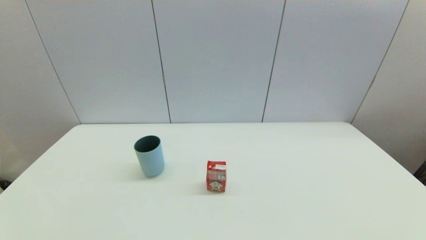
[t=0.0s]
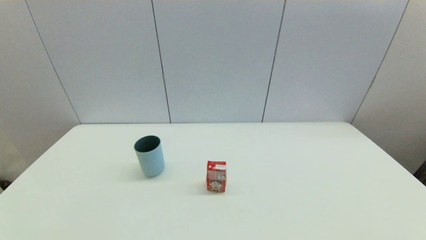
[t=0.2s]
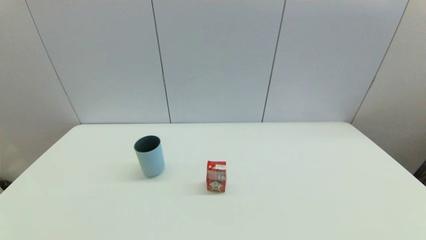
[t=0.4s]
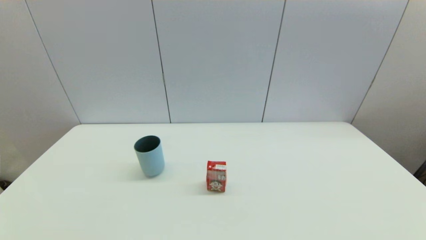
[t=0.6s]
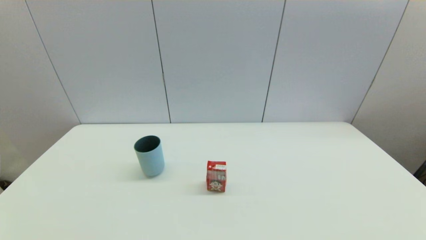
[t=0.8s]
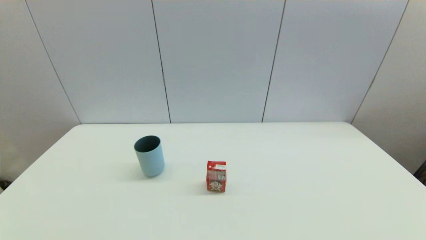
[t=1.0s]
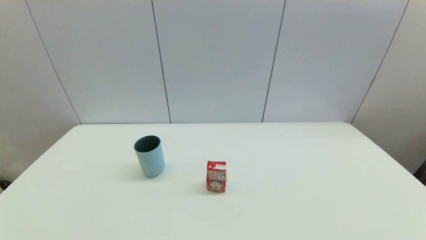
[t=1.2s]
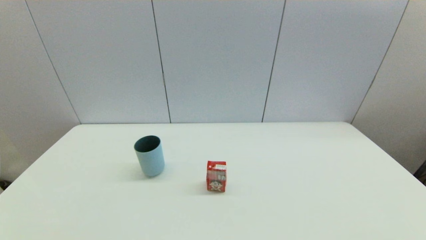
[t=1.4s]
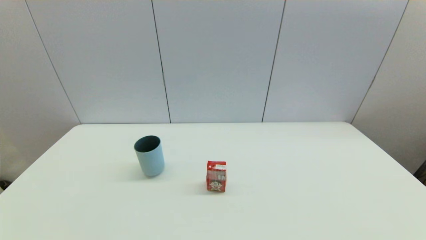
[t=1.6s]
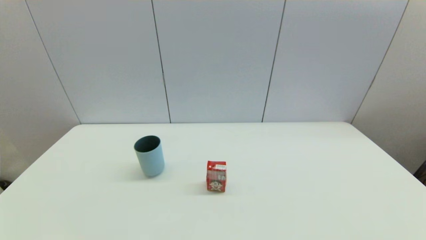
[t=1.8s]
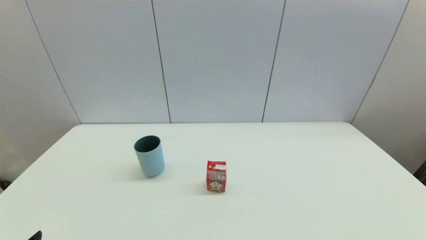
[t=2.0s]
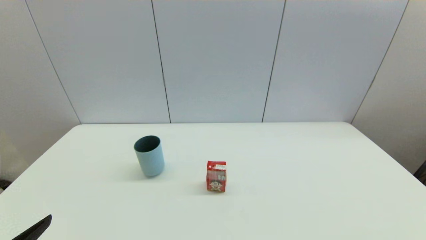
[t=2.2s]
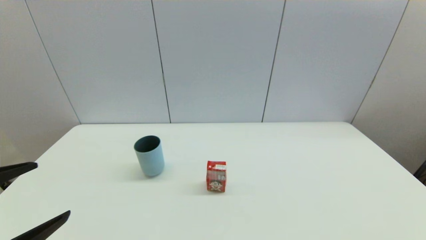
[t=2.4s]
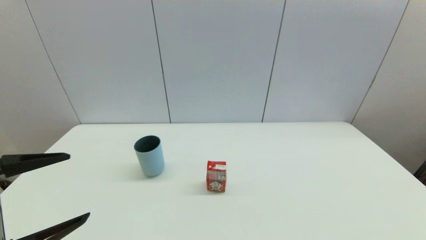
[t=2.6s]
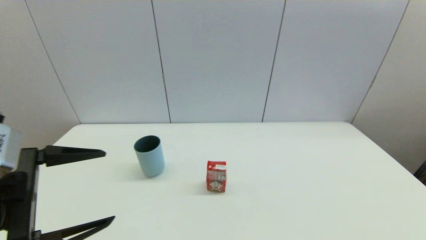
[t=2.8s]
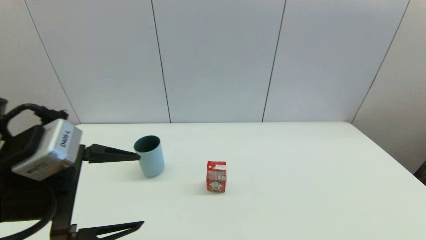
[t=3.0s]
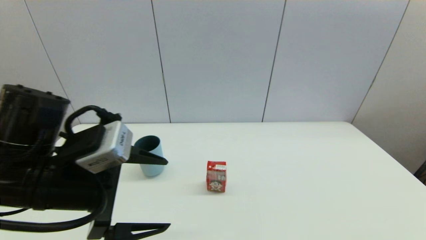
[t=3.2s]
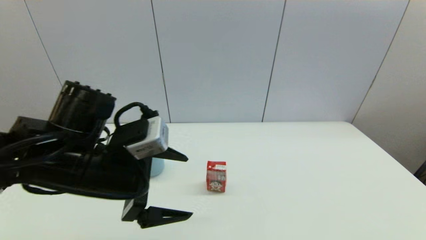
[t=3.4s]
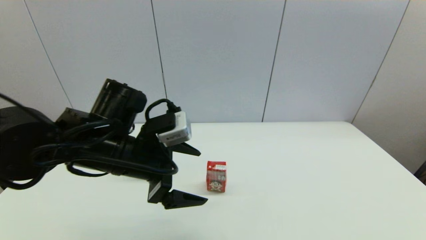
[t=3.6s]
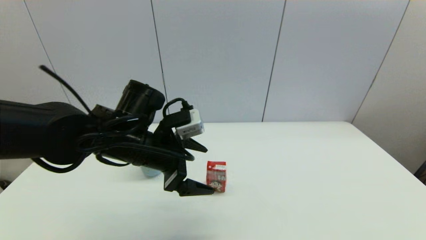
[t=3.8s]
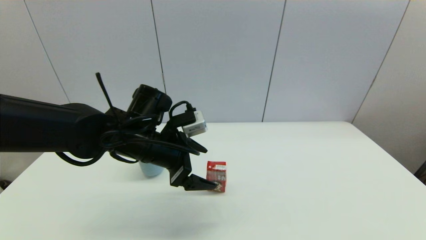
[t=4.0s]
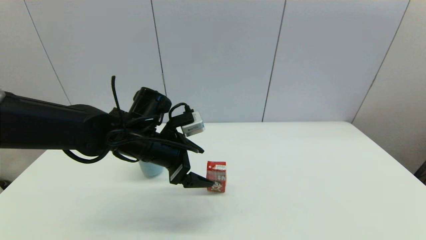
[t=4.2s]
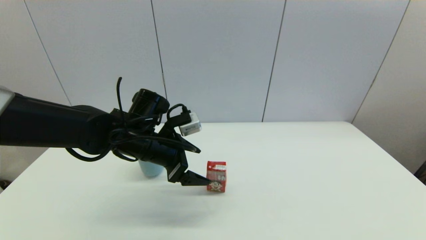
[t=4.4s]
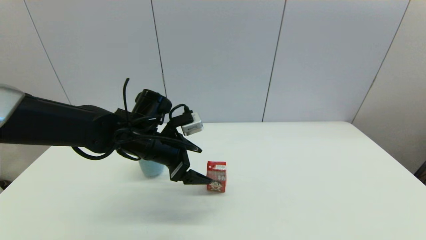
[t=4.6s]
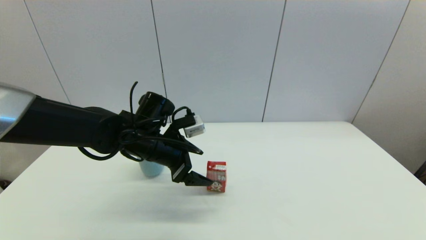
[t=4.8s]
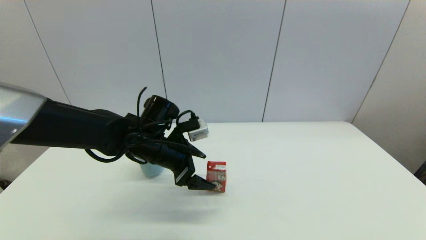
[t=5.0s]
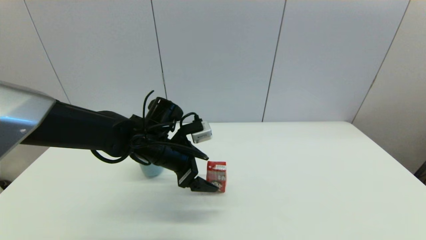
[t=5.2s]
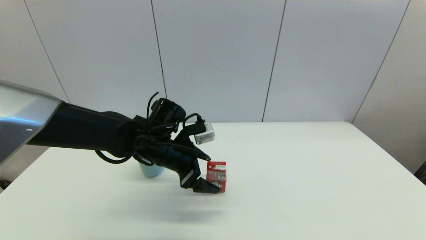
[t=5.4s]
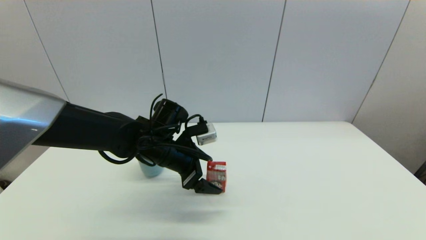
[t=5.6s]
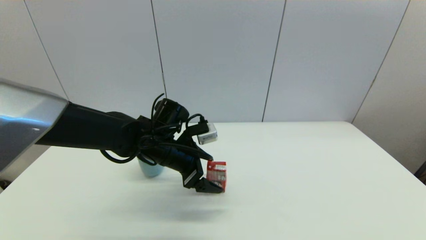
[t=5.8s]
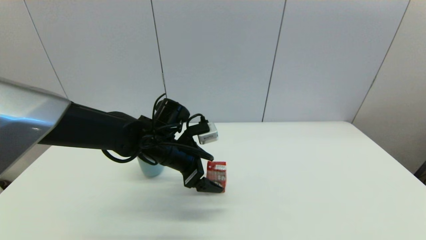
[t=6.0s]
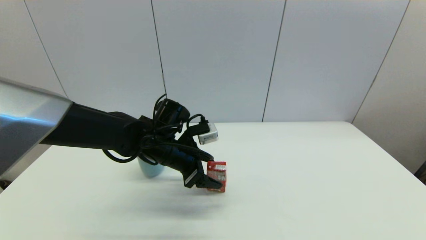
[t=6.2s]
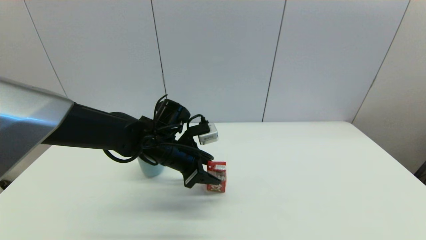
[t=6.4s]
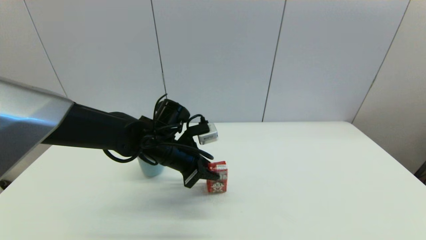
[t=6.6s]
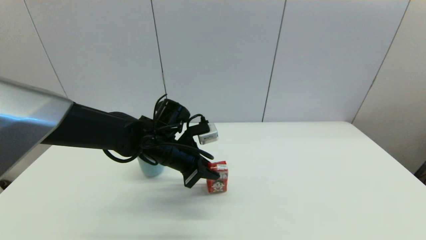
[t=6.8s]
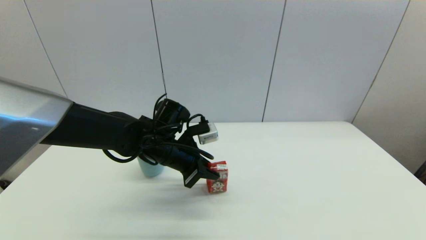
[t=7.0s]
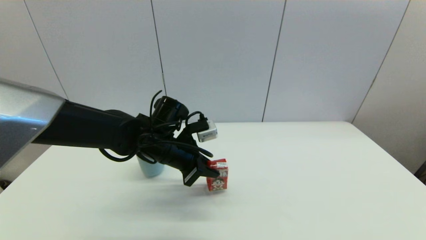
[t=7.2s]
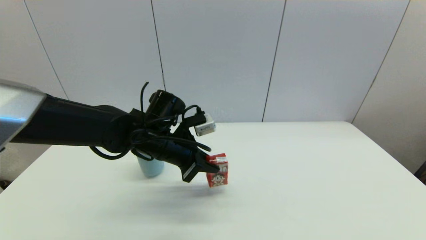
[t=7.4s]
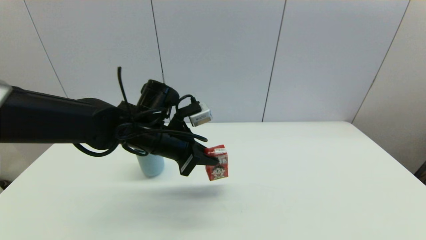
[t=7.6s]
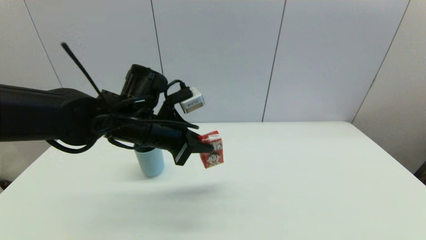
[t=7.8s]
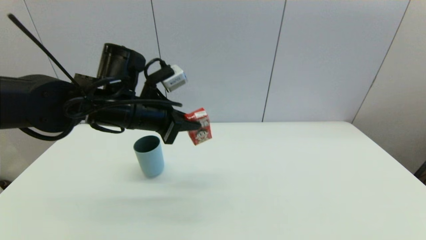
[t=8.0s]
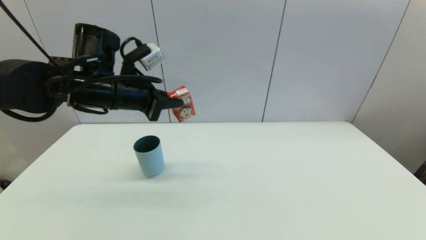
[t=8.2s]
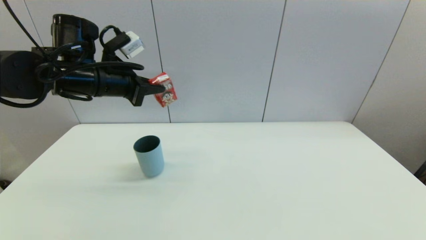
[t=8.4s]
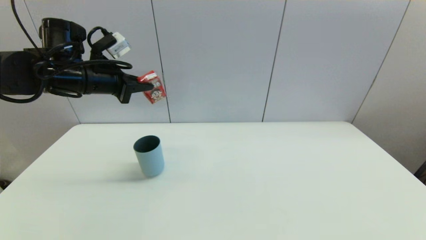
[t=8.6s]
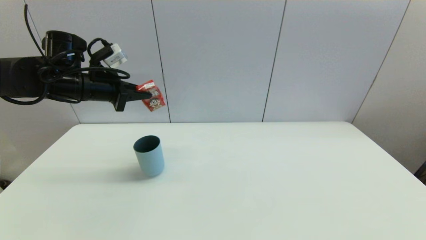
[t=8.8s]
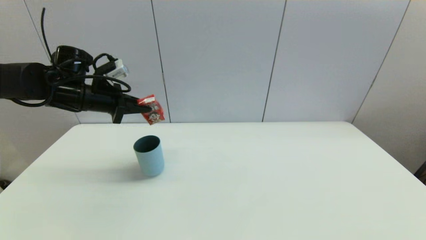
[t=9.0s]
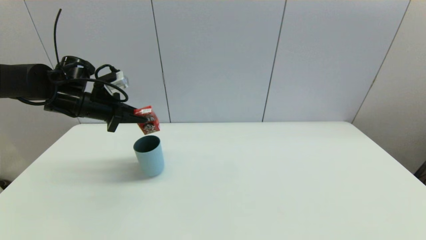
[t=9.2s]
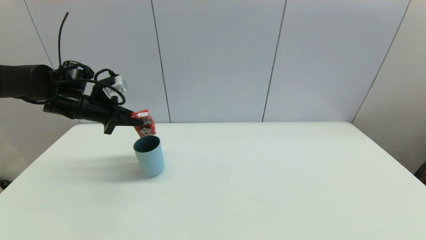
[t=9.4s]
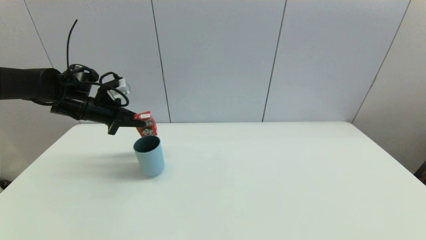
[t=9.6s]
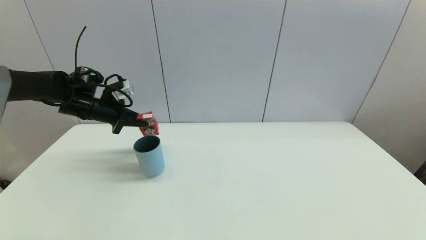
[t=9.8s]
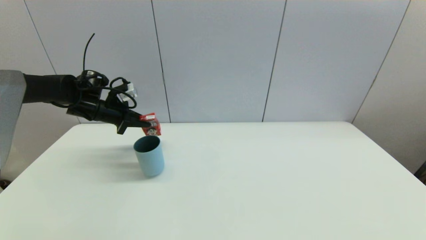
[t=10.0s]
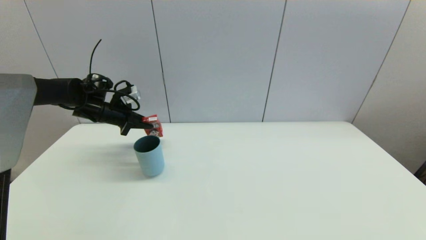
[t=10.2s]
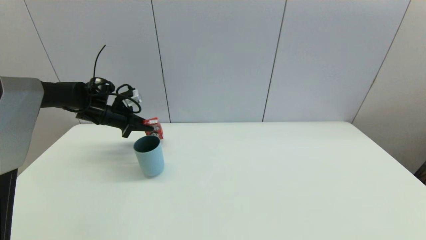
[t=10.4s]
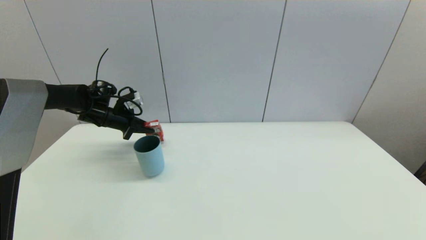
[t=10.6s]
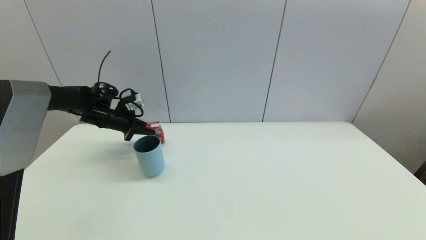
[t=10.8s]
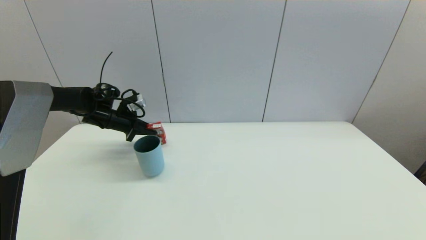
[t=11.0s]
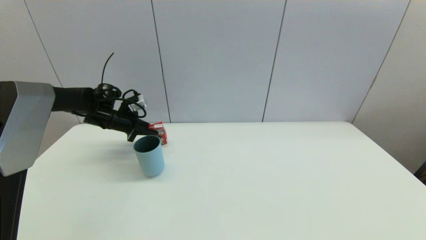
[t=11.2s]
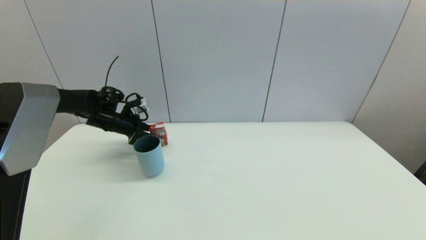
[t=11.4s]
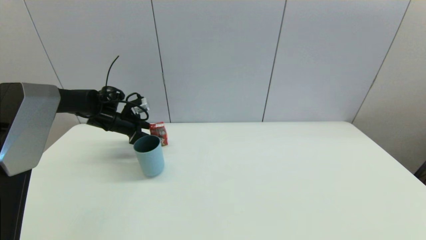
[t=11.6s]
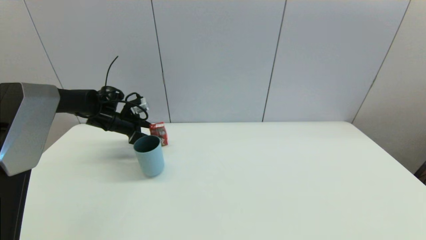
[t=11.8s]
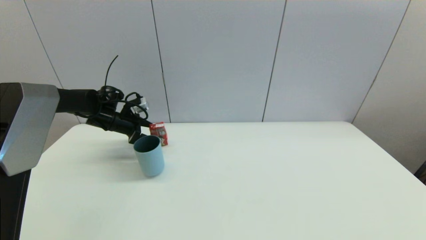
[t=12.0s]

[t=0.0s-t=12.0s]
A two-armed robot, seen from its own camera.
Step, t=2.0s to t=7.0s: Grasp the wangzai milk with left gripper.
Step, t=7.4s to t=11.4s: Place the wangzai milk on the table with left gripper.
t=1.6s to t=3.0s: The left gripper is displaced forward, upward and to the right by some 20 cm.
t=3.0s to t=4.4s: The left gripper heads forward, to the right and downward, covering some 20 cm.
t=4.4s to t=6.0s: The grippers move only a little.
t=6.0s to t=7.6s: The left gripper goes about 5 cm upward, and closes up.
t=7.6s to t=9.0s: The left gripper goes some 20 cm to the left and forward.
t=9.0s to t=10.4s: The left gripper goes some 10 cm downward and forward.
t=10.4s to t=12.0s: The left gripper opens its fingers.

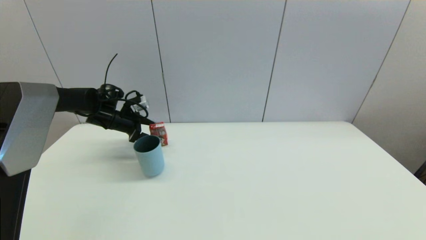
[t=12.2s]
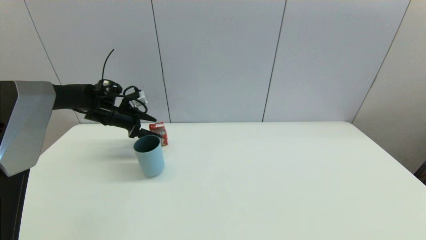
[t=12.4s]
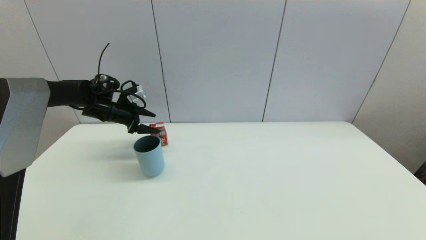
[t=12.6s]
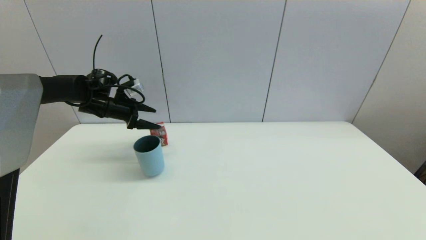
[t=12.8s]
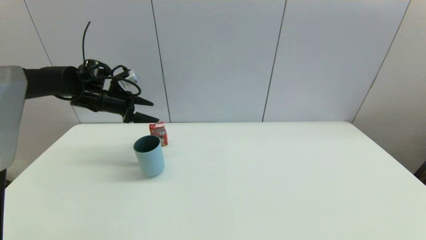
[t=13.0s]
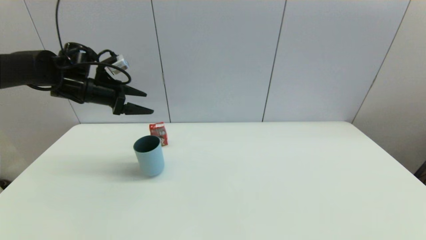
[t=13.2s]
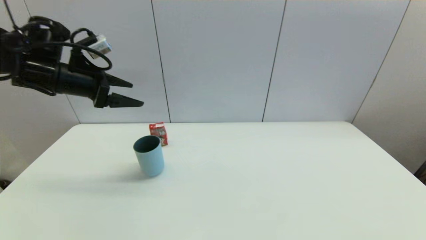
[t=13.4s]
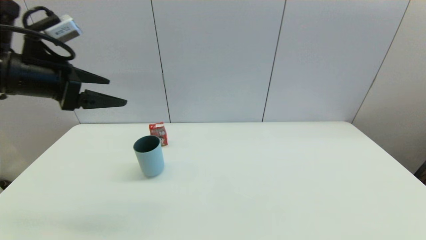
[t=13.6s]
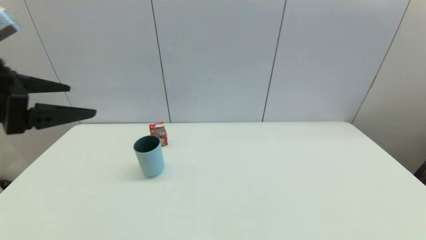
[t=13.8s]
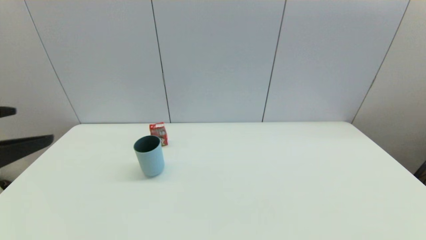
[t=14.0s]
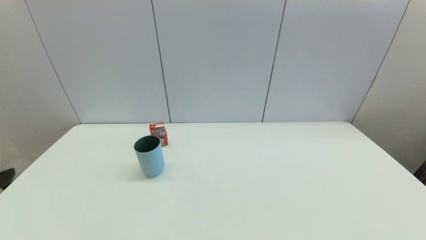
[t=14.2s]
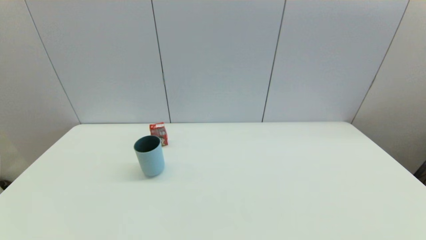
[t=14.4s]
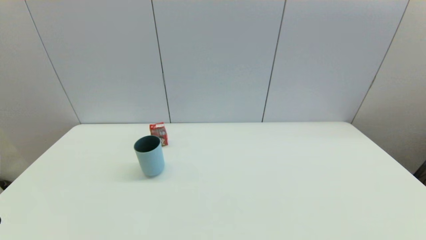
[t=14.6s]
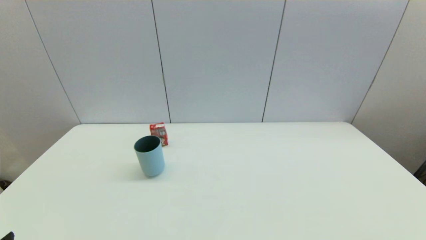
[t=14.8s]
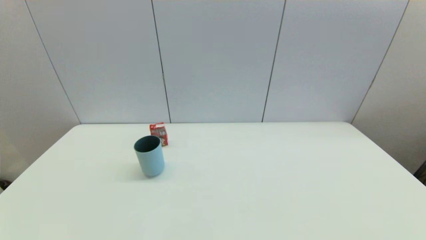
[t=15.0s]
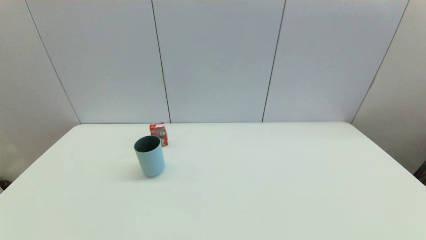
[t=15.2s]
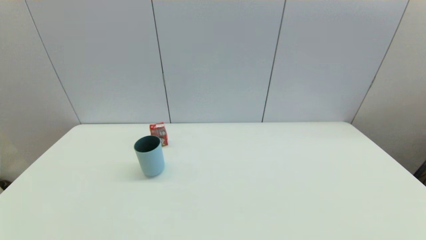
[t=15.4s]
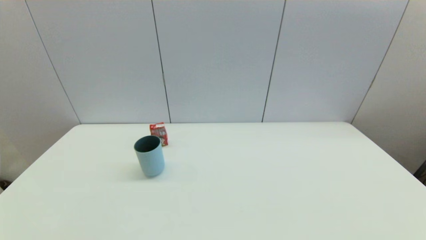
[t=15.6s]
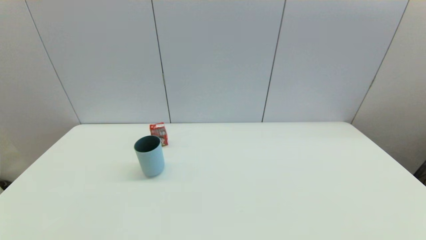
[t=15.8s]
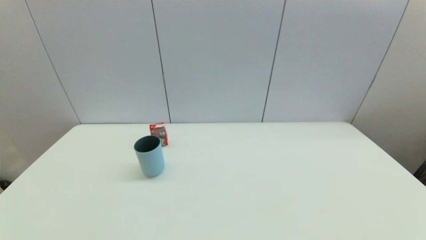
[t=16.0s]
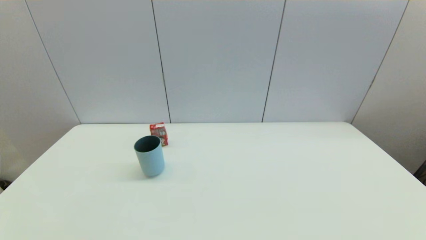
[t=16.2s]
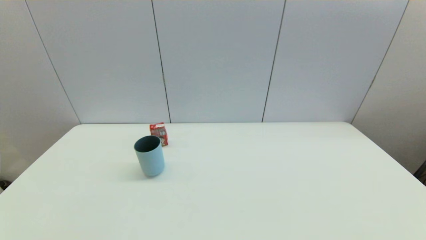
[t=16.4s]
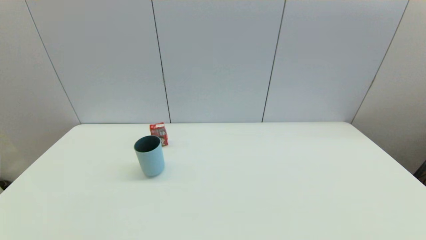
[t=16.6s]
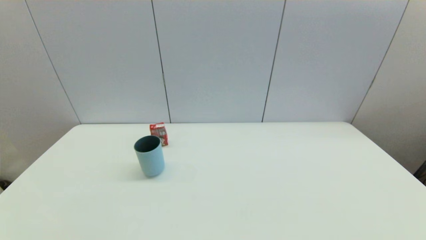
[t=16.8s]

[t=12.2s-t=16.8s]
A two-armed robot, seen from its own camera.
t=12.2s to t=13.8s: The left gripper shifts approximately 35 cm backward and upward.
t=13.8s to t=15.2s: The left gripper moves downward and backward, roughly 25 cm.
